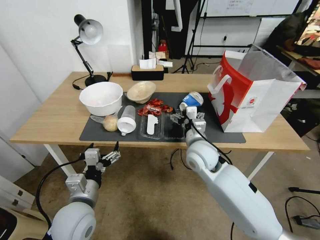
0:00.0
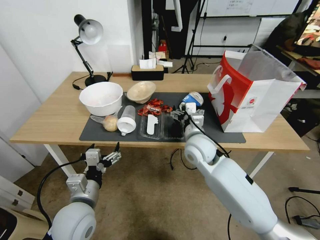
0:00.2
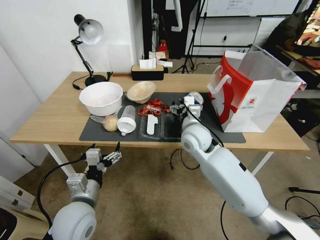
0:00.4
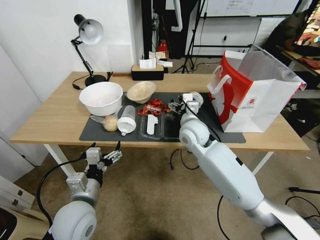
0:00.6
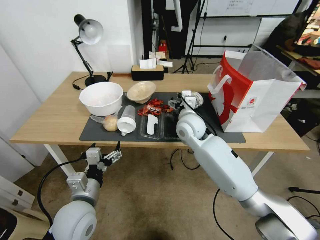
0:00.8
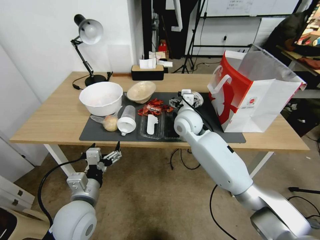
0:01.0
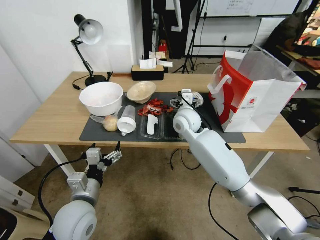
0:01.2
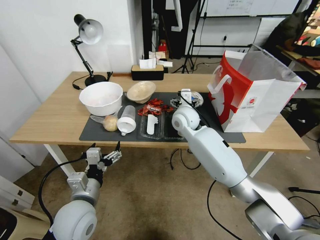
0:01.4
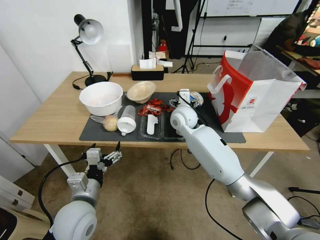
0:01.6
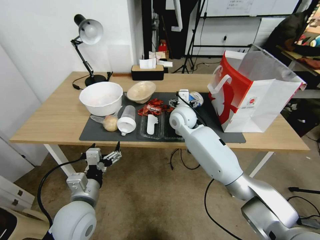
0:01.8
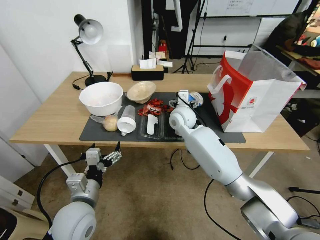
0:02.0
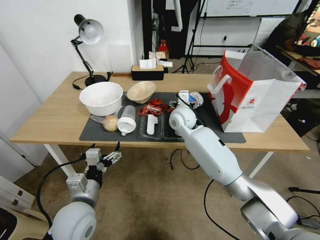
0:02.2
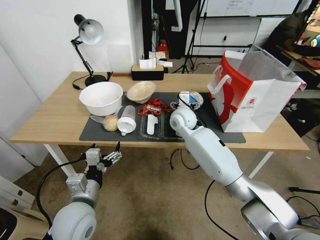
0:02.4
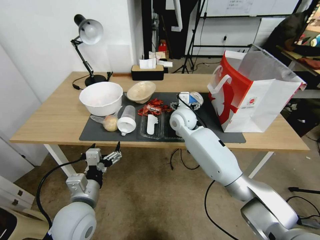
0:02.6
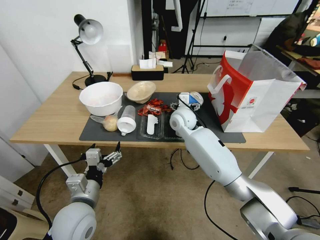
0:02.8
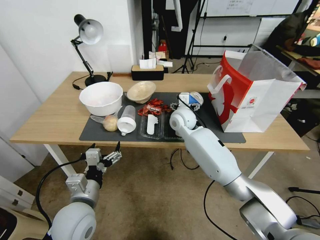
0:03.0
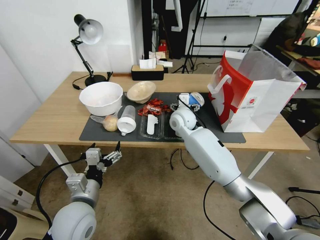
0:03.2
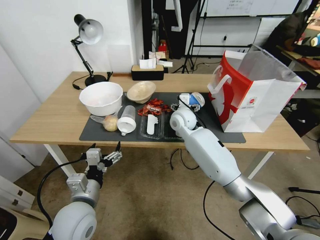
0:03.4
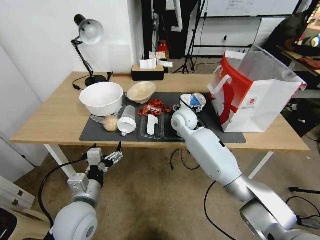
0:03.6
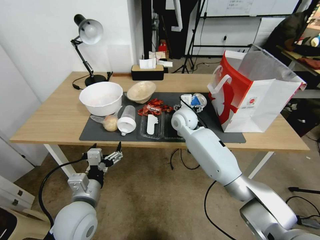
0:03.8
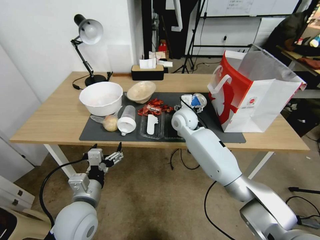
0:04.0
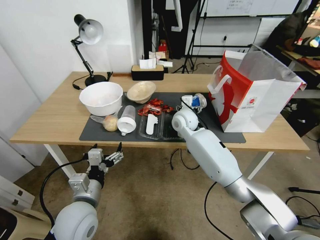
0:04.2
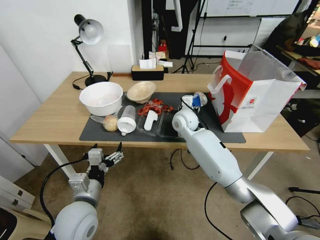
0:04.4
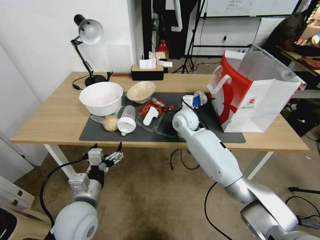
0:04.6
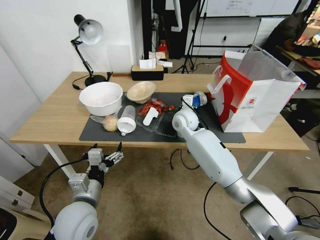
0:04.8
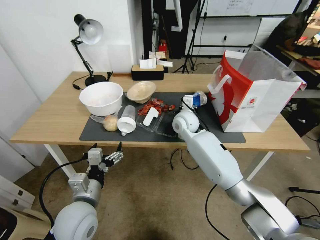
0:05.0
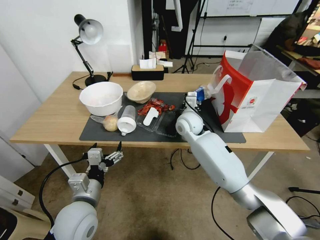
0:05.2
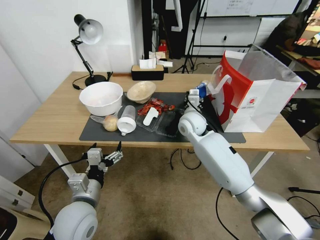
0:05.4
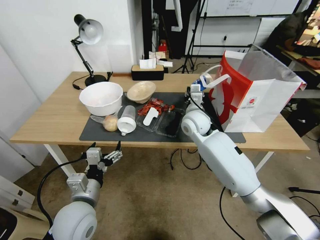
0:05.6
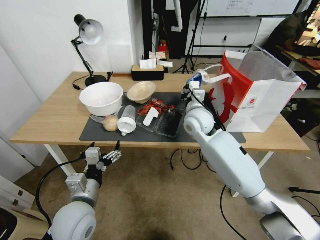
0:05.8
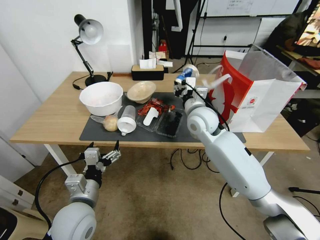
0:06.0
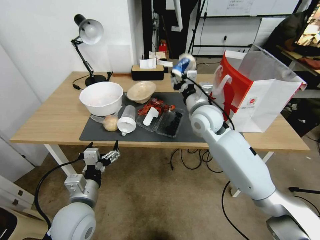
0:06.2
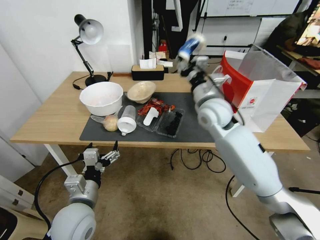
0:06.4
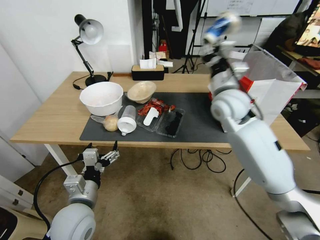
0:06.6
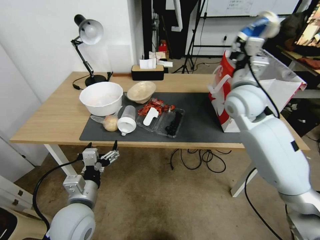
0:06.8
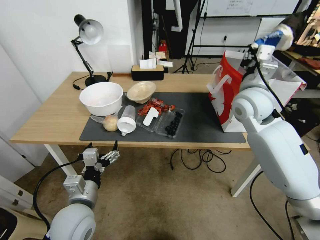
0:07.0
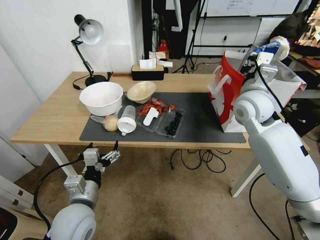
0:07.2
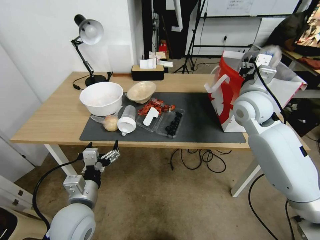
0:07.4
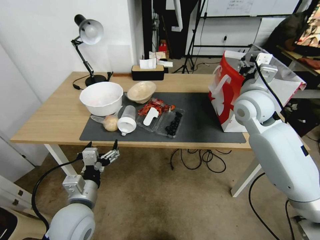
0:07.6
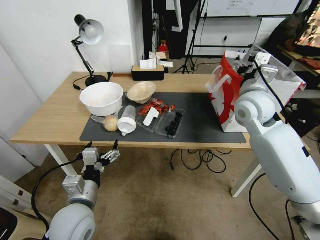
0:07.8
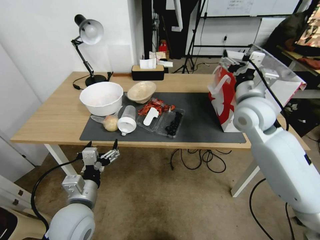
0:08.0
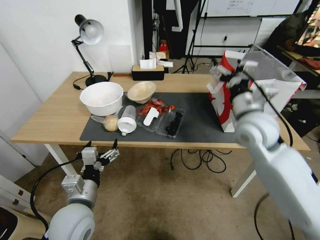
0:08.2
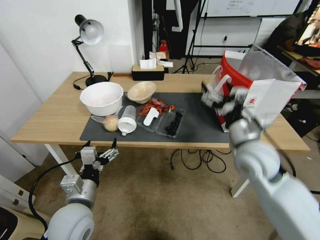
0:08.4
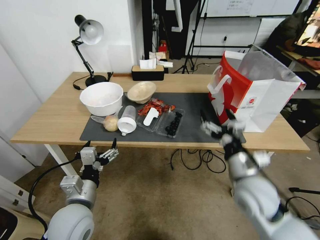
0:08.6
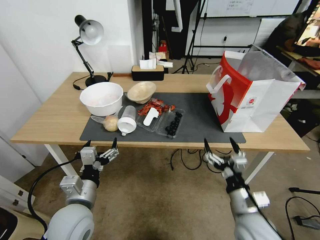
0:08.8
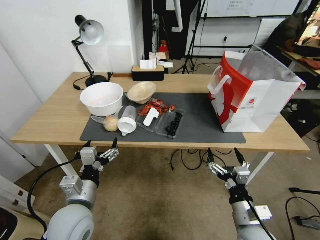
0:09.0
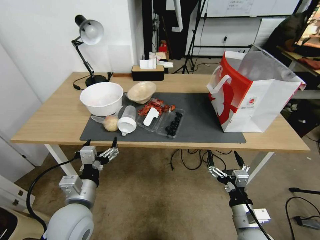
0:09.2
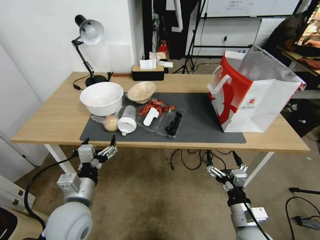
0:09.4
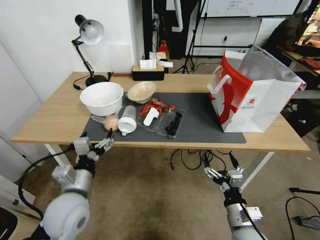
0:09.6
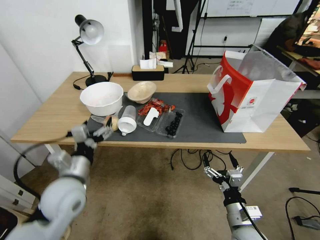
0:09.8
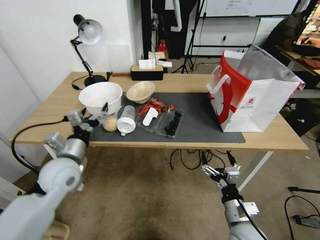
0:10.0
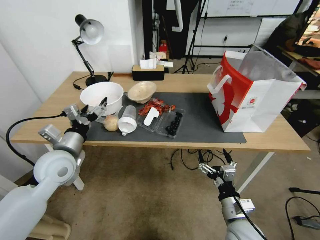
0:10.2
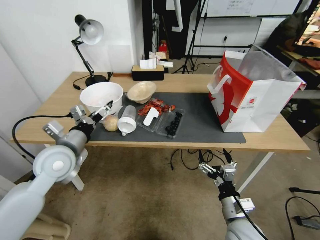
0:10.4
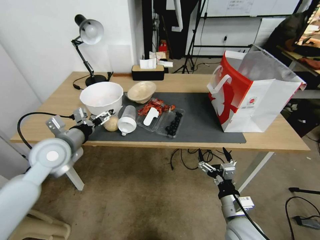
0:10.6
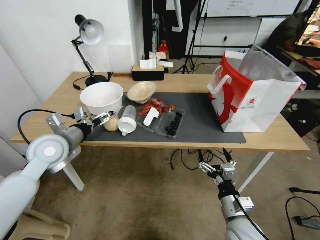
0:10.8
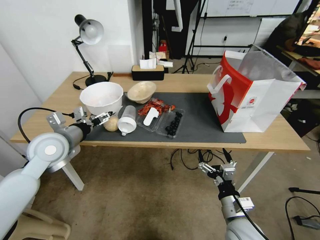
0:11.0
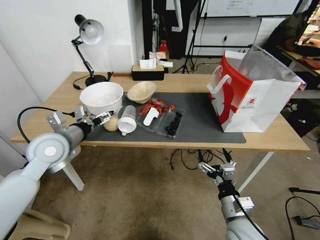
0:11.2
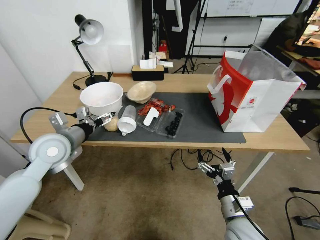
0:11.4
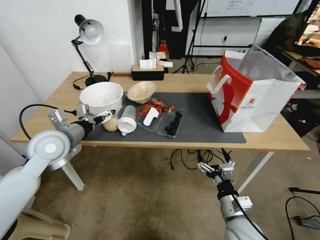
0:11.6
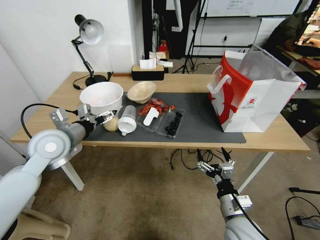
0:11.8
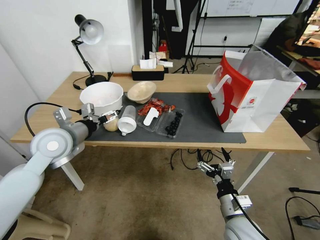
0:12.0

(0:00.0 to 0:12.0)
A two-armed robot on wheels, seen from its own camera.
0:00.0 - 0:01.6: The right gripper heads forward, covering approximately 15 cm.
0:01.6 - 0:03.0: There are only small adjustments of the grippers.
0:03.0 - 0:04.4: The right gripper closes its fingers.
0:04.4 - 0:06.0: The right gripper is displaced upward and backward by roughly 10 cm.
0:06.0 - 0:07.6: The right gripper shifts roughly 15 cm to the right and upward, and opens its fingers.
0:07.6 - 0:09.0: The right gripper travels backward and downward by approximately 40 cm.
0:09.0 - 0:10.4: The left gripper shifts approximately 15 cm forward, upward and to the left.
0:10.4 - 0:12.0: There are only small adjustments of the grippers.

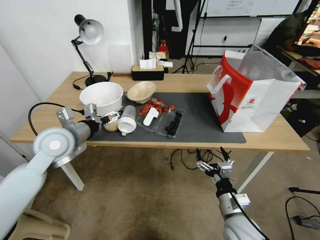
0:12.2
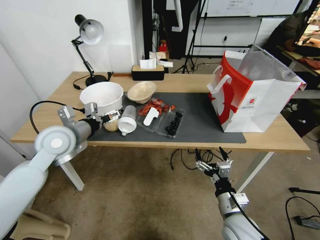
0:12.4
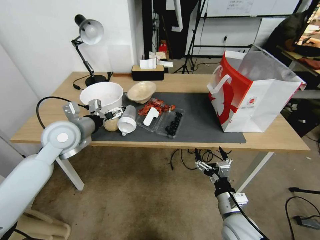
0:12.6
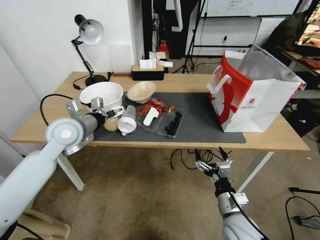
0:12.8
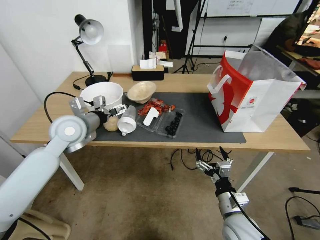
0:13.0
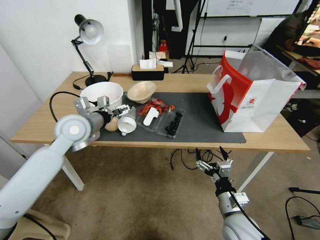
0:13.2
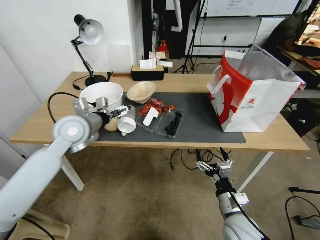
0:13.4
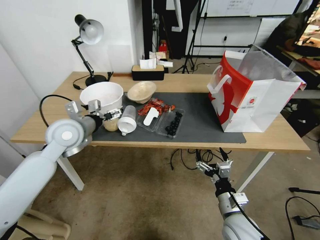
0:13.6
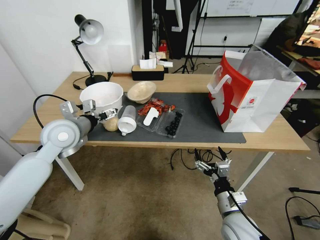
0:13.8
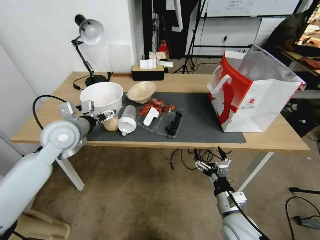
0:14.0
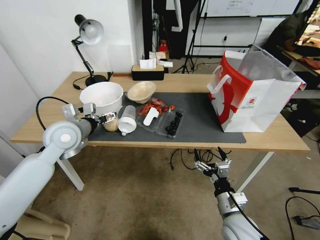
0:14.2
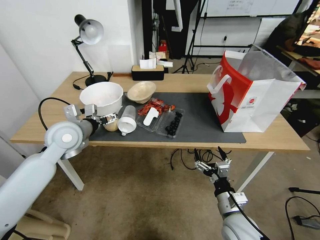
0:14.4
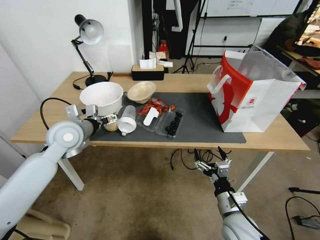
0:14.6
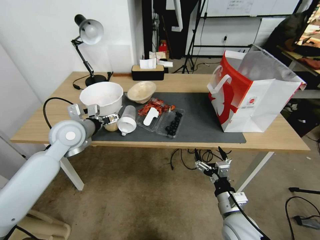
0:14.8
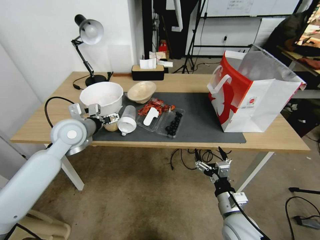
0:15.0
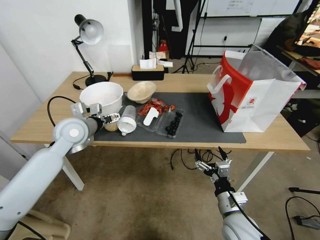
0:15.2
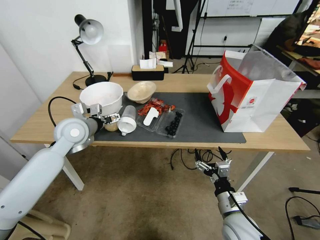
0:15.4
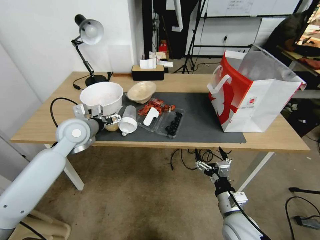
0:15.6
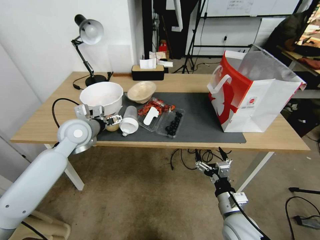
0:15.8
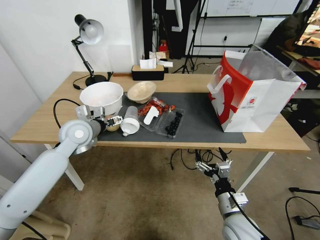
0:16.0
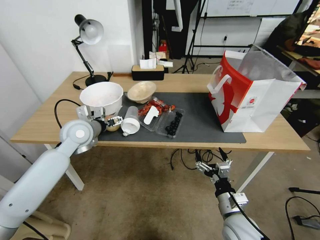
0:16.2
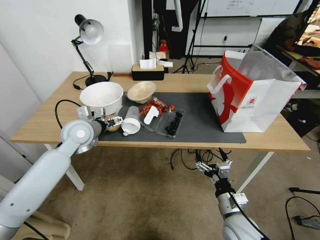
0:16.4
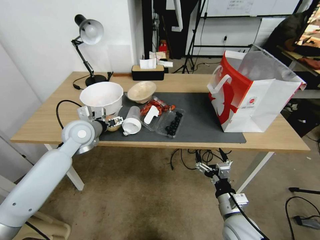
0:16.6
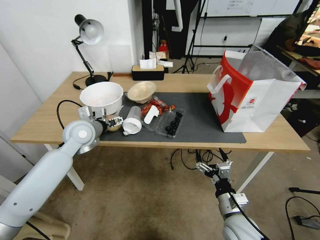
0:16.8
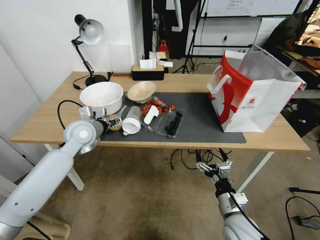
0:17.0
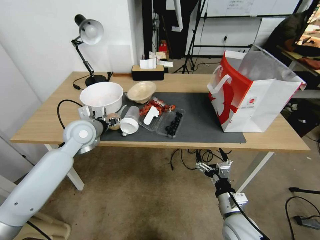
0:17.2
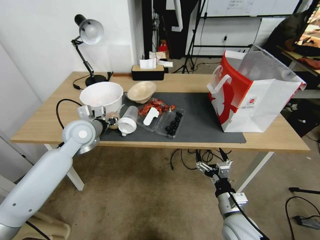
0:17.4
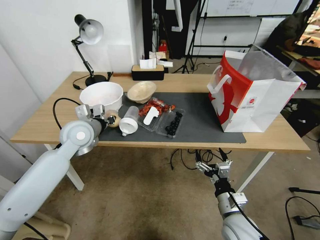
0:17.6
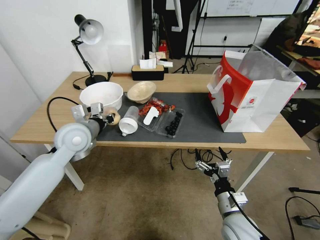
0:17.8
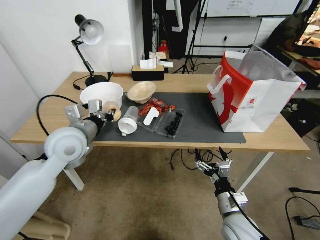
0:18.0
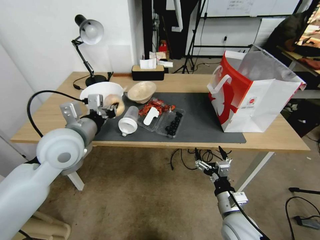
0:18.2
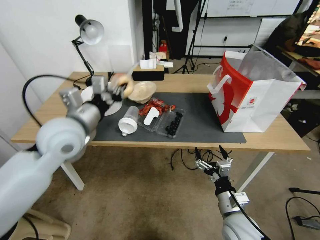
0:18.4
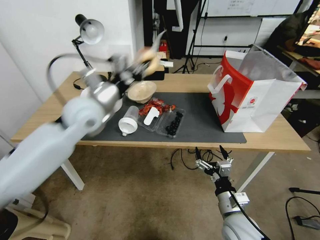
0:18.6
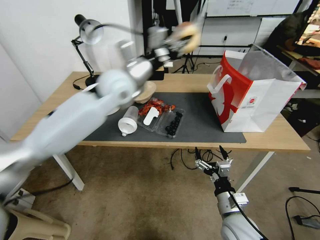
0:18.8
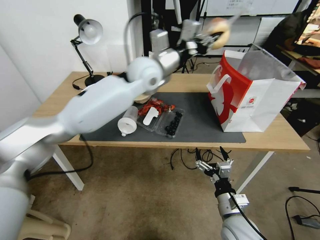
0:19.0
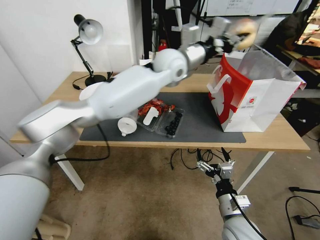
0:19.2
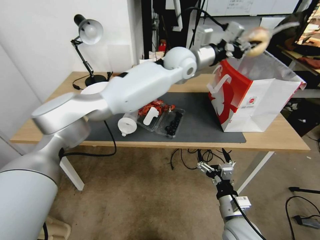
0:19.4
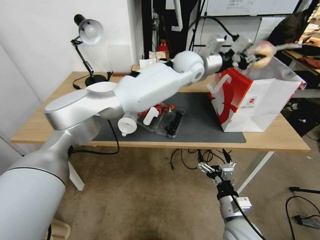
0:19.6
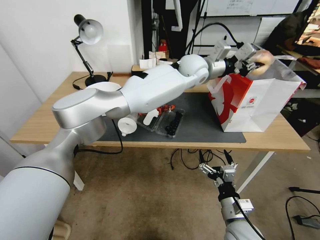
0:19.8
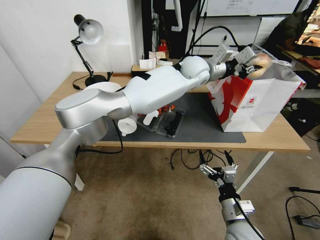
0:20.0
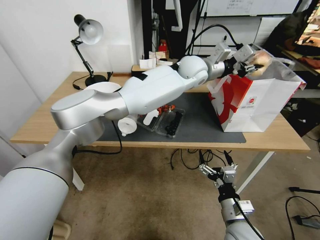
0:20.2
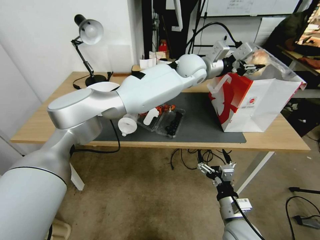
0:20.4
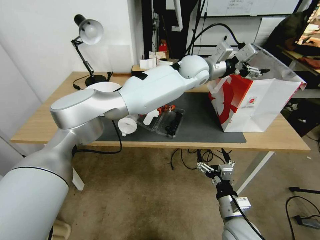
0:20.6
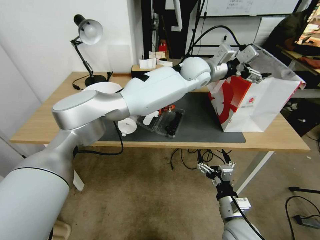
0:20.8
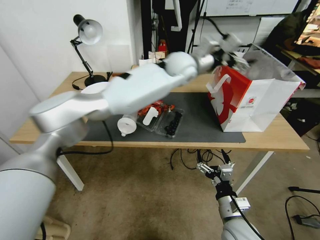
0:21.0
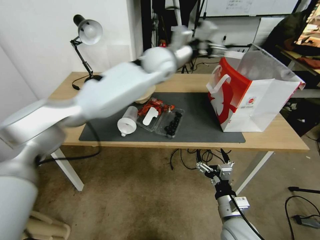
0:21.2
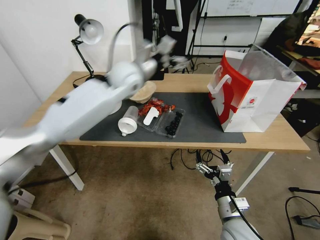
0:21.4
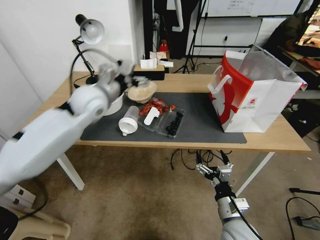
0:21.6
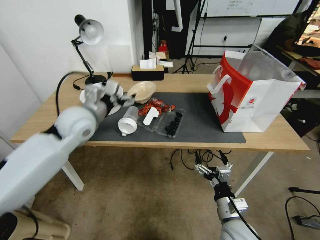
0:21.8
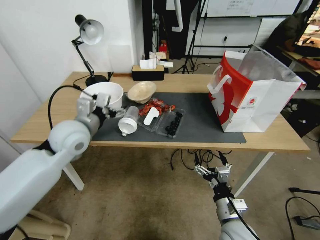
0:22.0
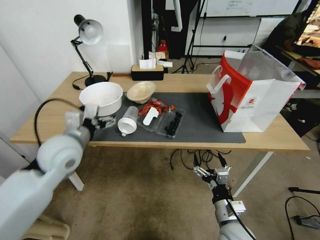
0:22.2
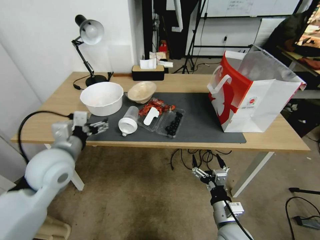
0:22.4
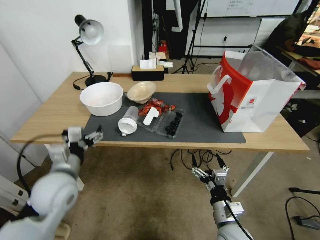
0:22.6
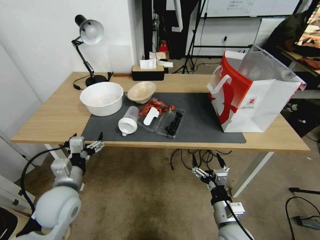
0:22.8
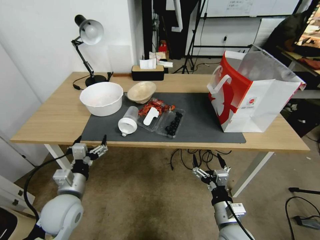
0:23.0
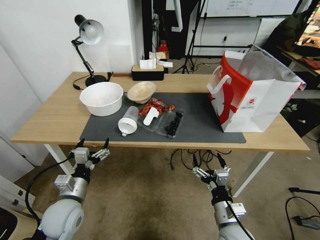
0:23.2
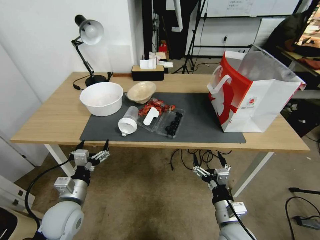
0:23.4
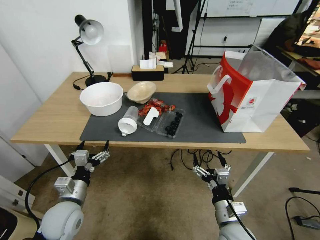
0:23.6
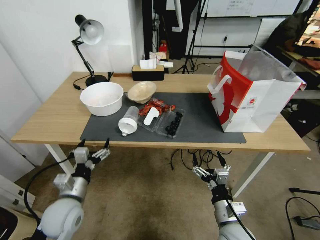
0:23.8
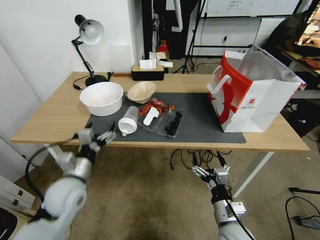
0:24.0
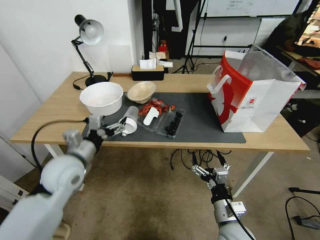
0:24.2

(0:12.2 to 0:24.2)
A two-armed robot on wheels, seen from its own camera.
0:12.2 - 0:15.2: The grippers make only small movements.
0:15.2 - 0:16.6: The grippers move only a little.
0:16.6 - 0:18.2: The left gripper moves backward and upward, about 15 cm, and closes.
0:18.2 - 0:19.8: The left gripper shifts about 40 cm to the right and forward.
0:19.8 - 0:21.2: The left gripper goes roughly 10 cm to the left, and opens its fingers.
0:21.2 - 0:22.6: The left gripper is displaced backward, to the left and downward by roughly 50 cm.
0:22.6 - 0:24.2: The left gripper travels downward and back again, some 10 cm each way.
